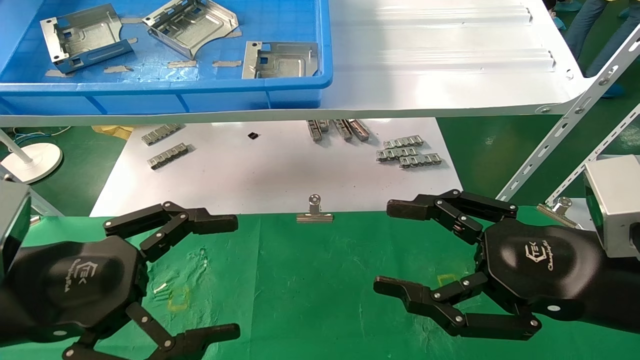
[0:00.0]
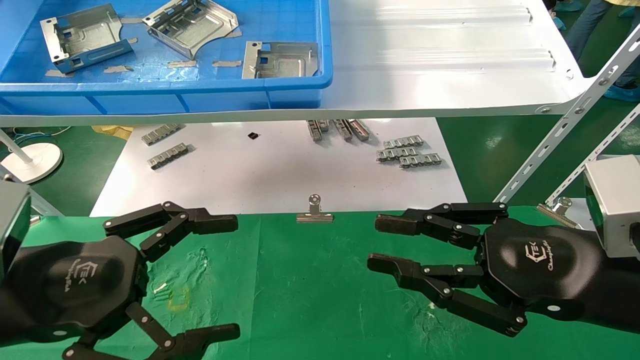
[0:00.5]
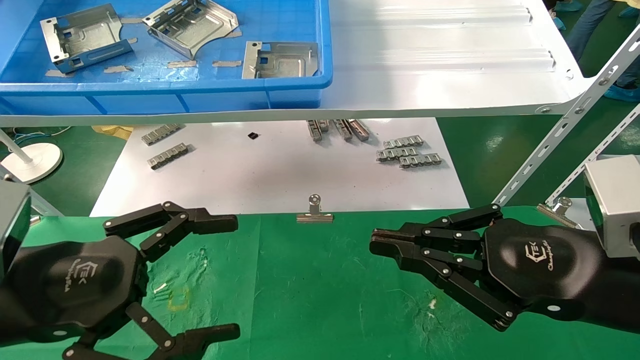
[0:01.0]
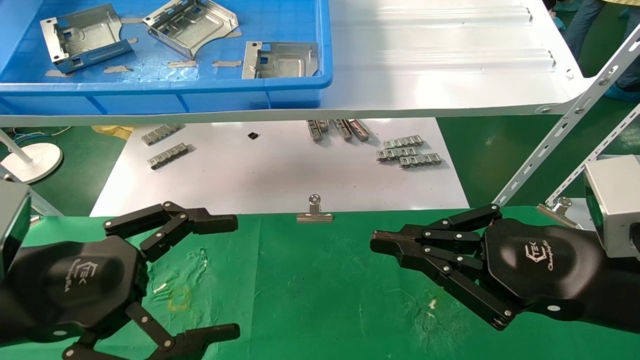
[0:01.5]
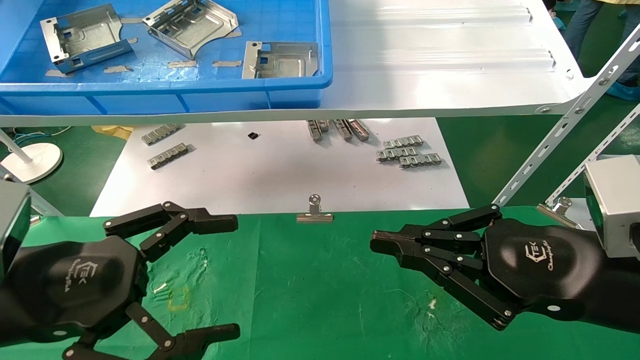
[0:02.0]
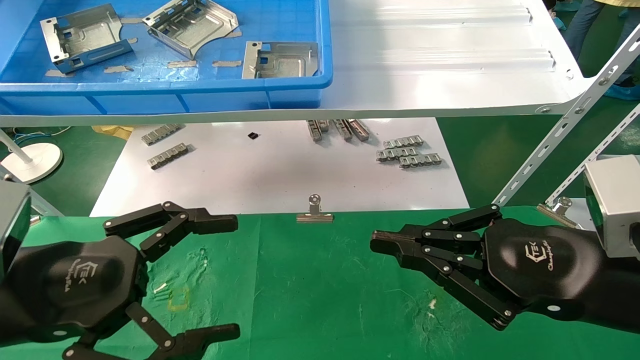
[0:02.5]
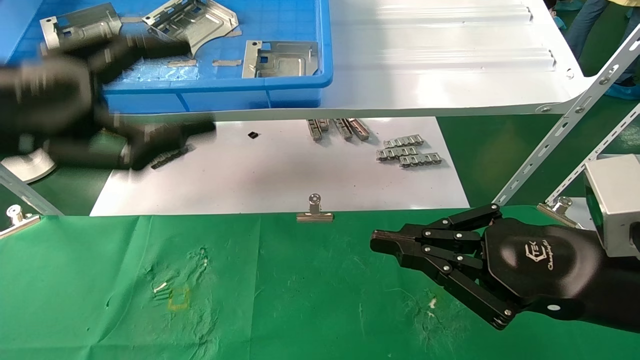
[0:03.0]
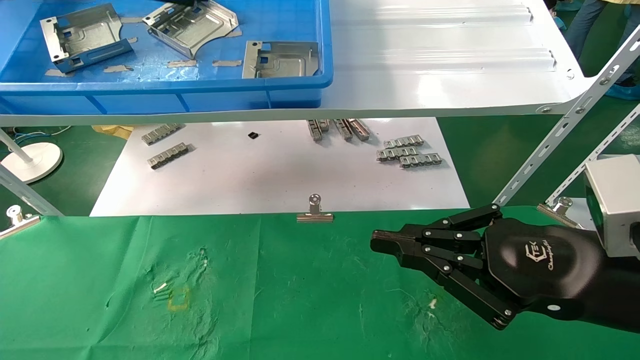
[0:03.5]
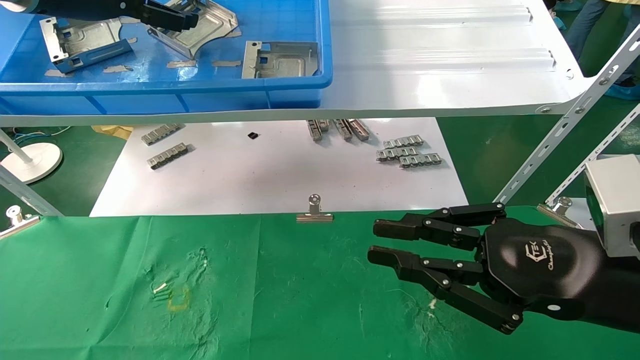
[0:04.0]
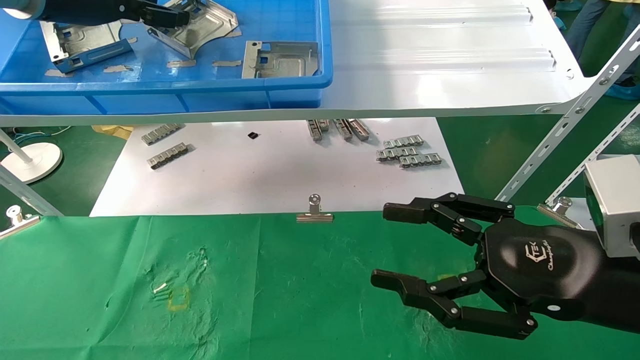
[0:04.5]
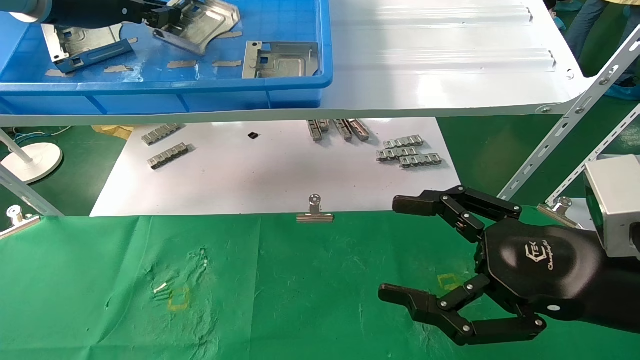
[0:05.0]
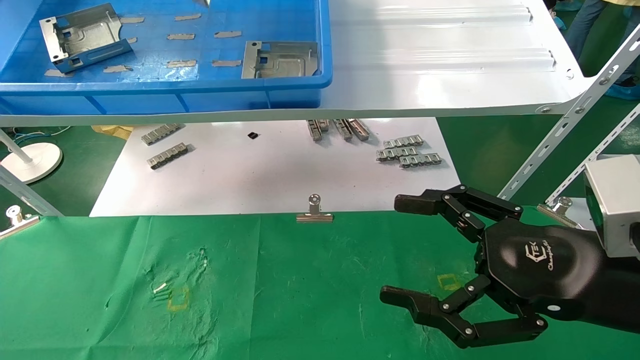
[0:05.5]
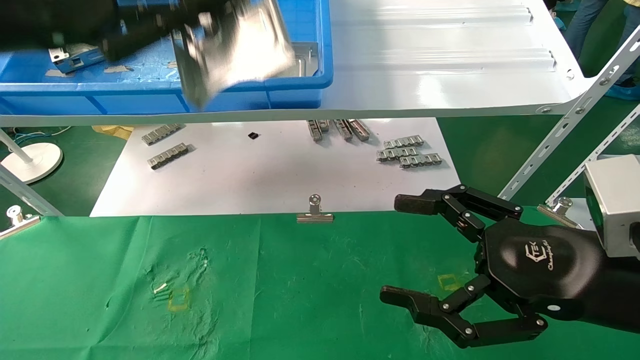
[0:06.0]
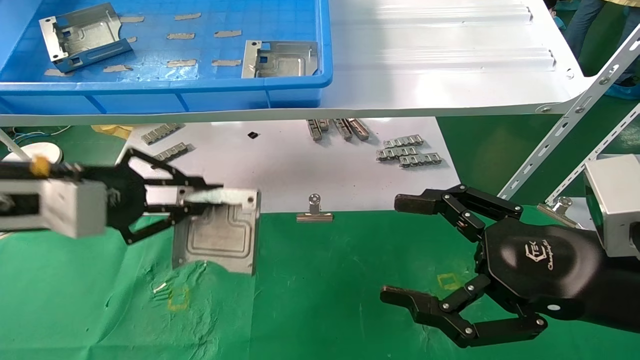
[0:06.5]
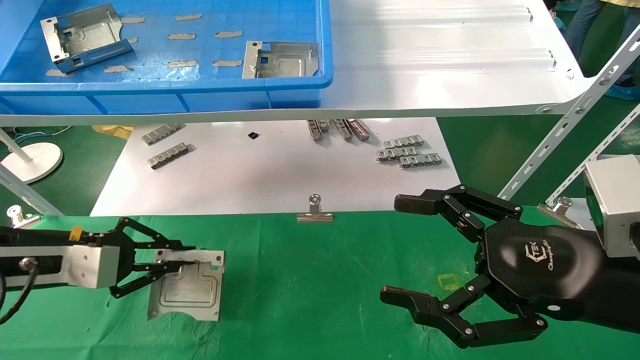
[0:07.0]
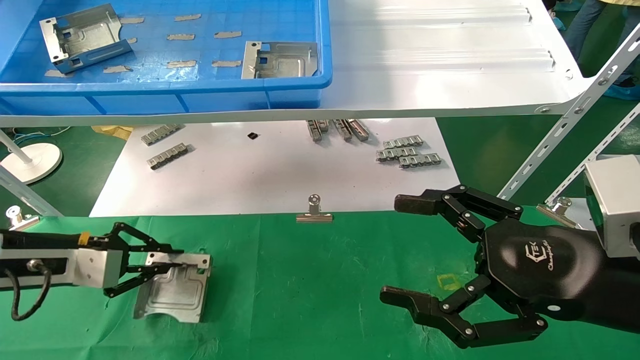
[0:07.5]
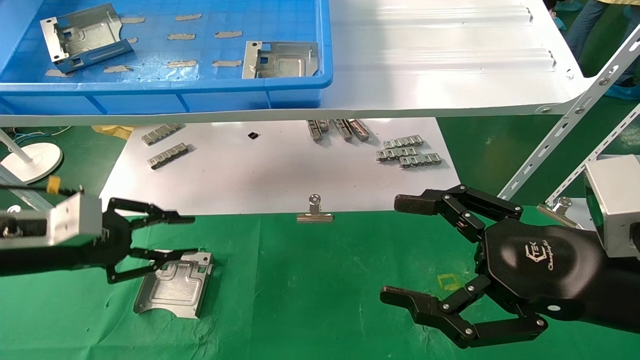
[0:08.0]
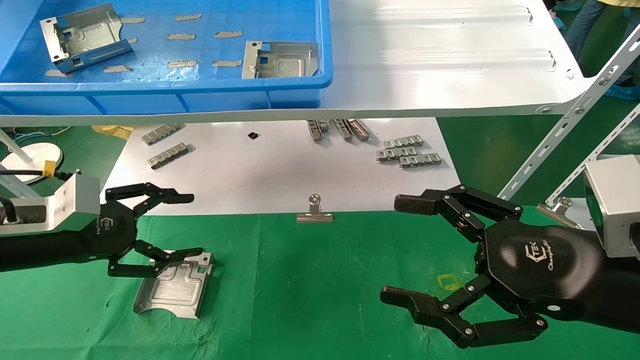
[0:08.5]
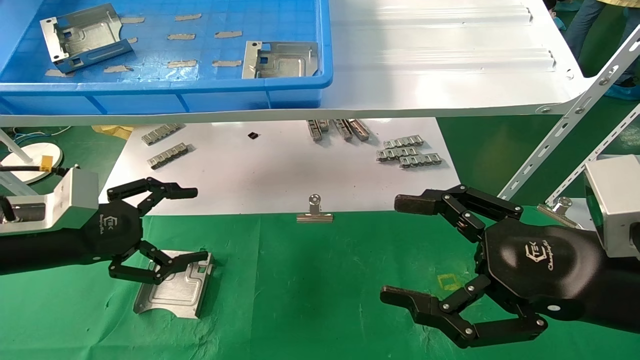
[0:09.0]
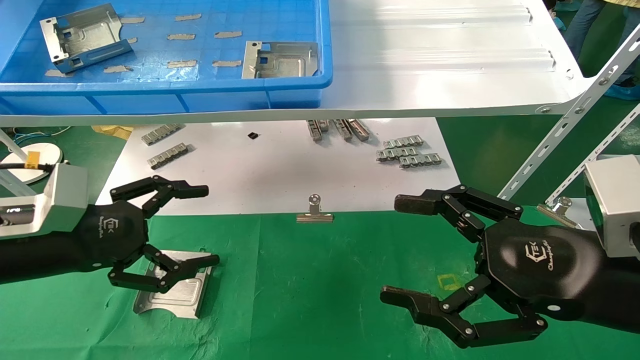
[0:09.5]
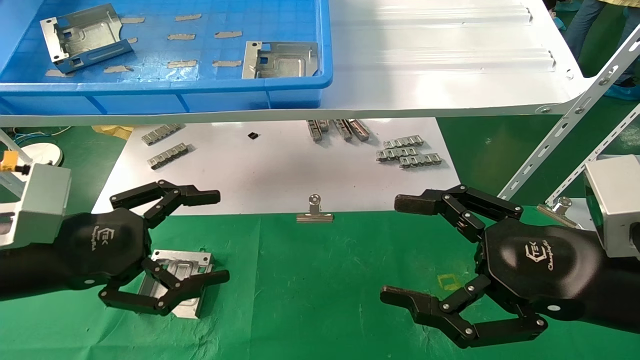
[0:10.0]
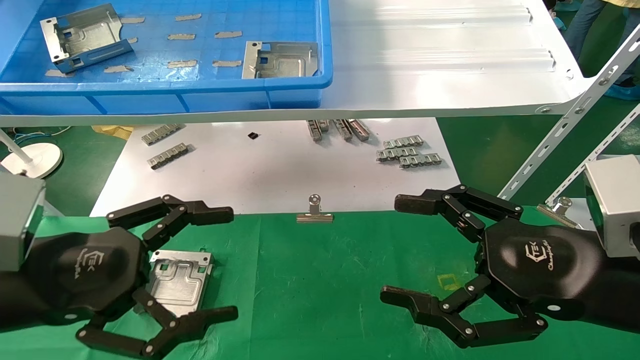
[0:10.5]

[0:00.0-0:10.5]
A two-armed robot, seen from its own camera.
Task of the whole recording: use the mechanical arm to pick up the parts and place them on the table.
Step, 0:03.0 to 0:05.0: Pick up the hard drive bracket from the feeding area.
Step, 0:05.5 to 0:07.5: Place the hard drive bracket into the box.
0:00.0 to 0:02.0: The right gripper closes up.
0:02.0 to 0:04.0: The left gripper goes roughly 30 cm upward and forward.
0:04.0 to 0:06.5: The right gripper opens. Meanwhile the left gripper travels downward and backward by some 20 cm, and closes its fingers.
0:06.5 to 0:08.5: The left gripper is displaced downward by about 10 cm, and opens.
0:08.5 to 0:10.5: The left gripper goes roughly 15 cm backward and to the right, and opens its fingers.
